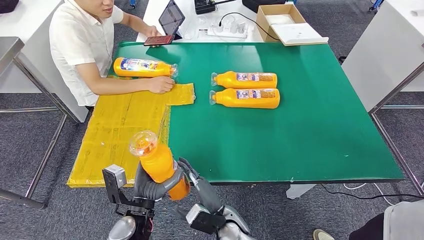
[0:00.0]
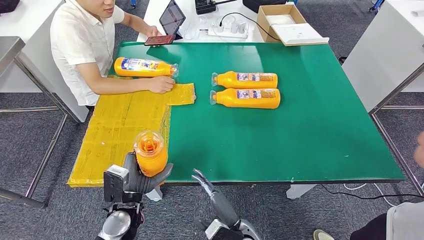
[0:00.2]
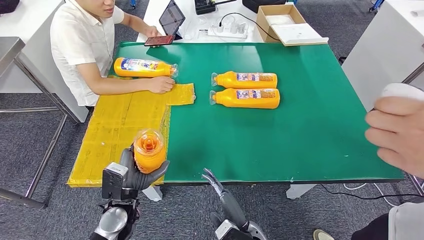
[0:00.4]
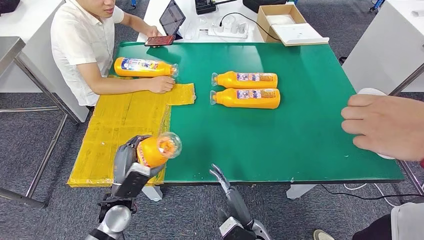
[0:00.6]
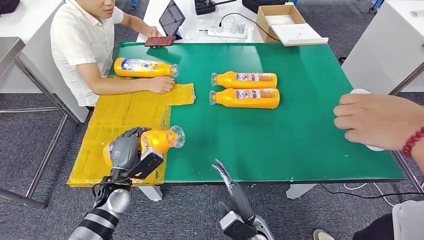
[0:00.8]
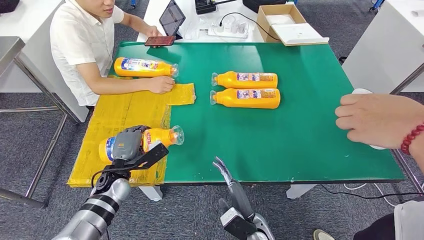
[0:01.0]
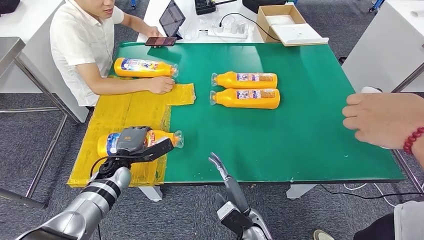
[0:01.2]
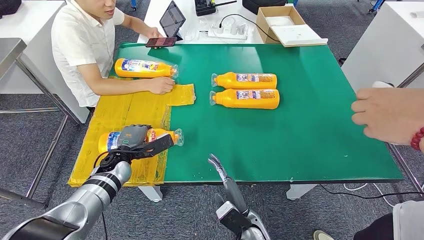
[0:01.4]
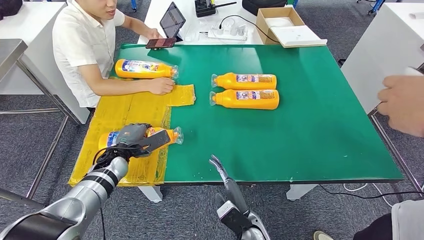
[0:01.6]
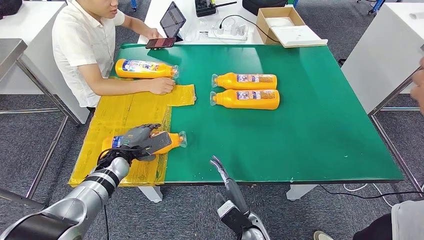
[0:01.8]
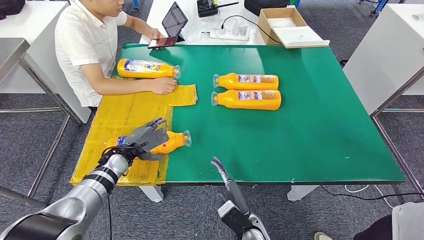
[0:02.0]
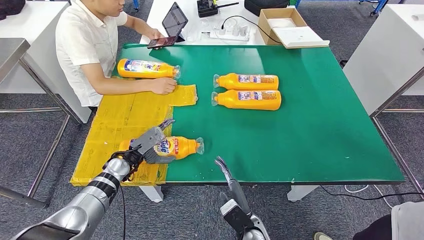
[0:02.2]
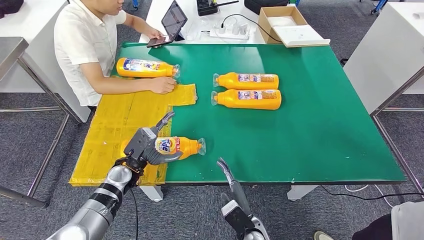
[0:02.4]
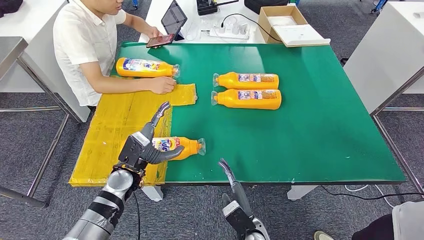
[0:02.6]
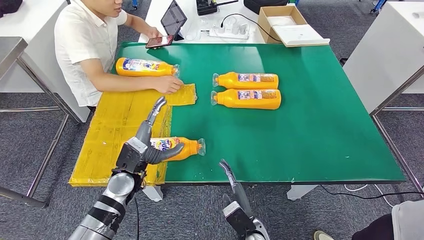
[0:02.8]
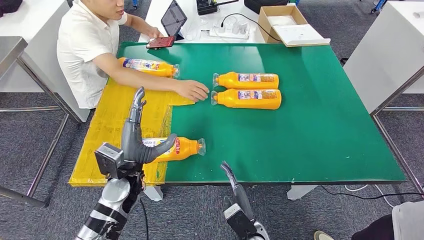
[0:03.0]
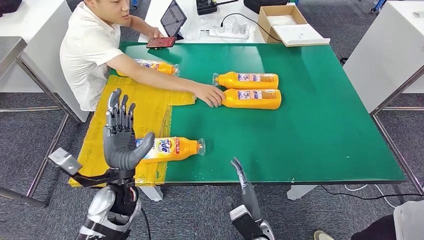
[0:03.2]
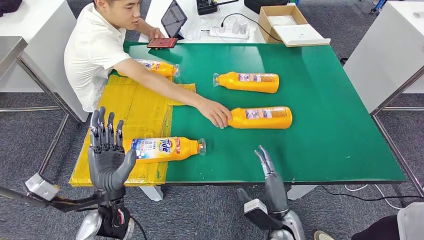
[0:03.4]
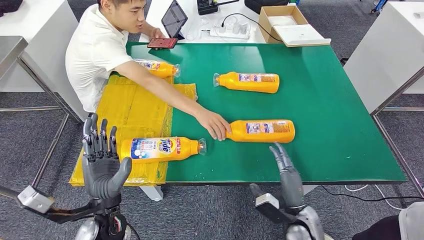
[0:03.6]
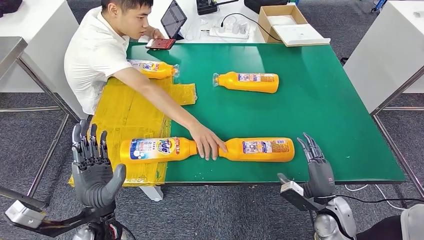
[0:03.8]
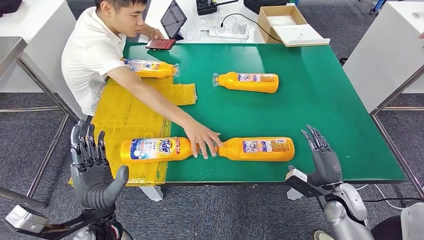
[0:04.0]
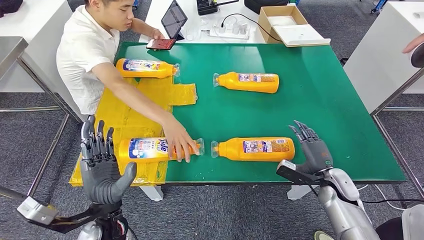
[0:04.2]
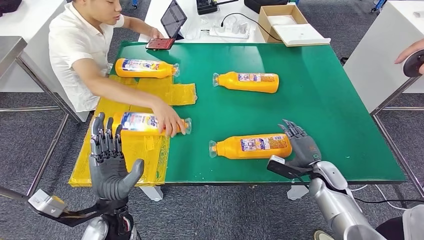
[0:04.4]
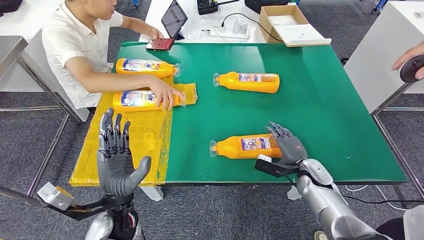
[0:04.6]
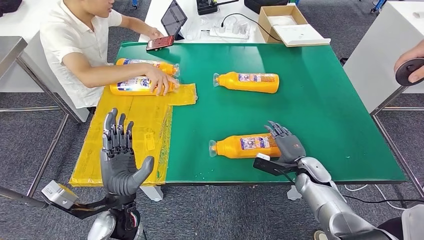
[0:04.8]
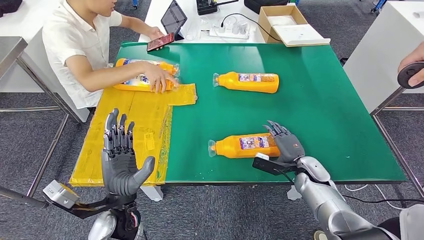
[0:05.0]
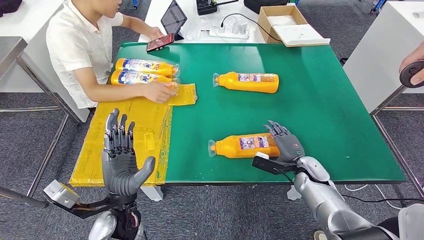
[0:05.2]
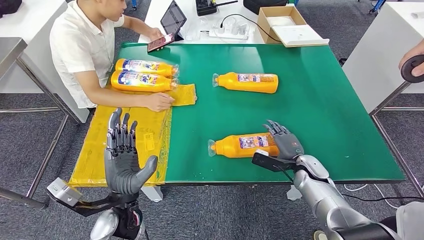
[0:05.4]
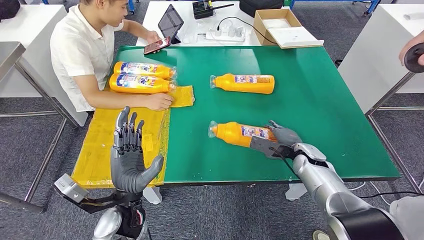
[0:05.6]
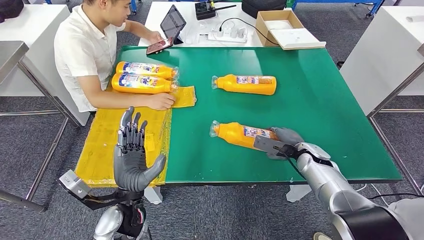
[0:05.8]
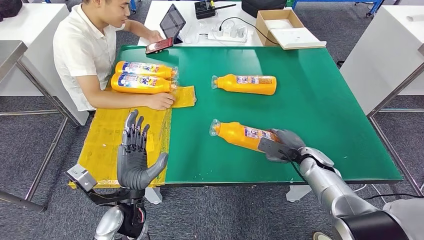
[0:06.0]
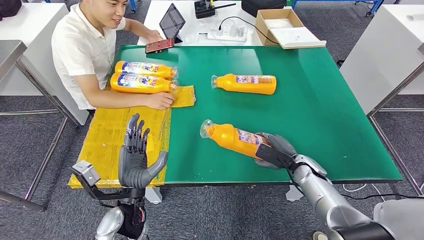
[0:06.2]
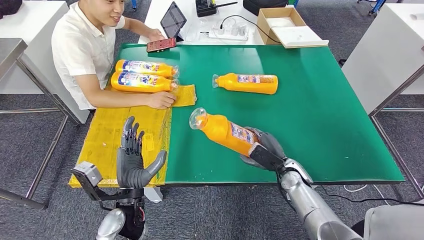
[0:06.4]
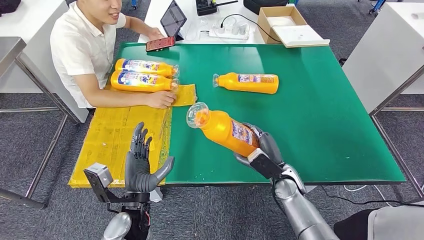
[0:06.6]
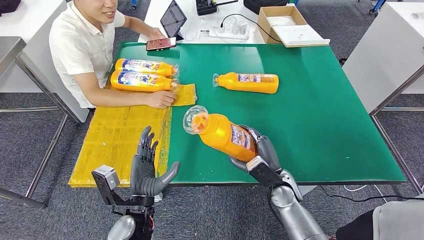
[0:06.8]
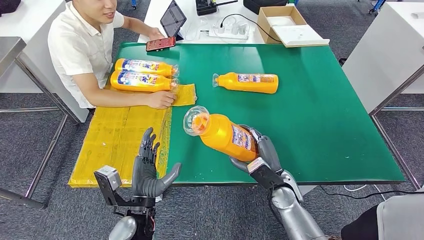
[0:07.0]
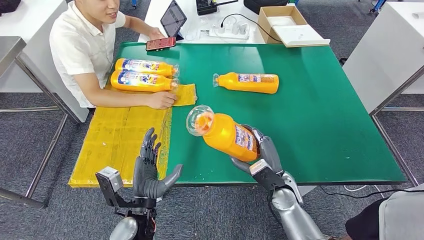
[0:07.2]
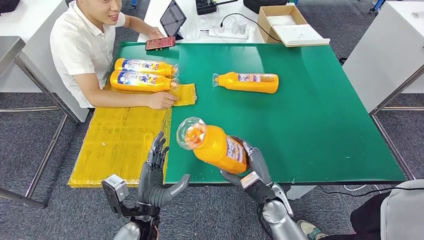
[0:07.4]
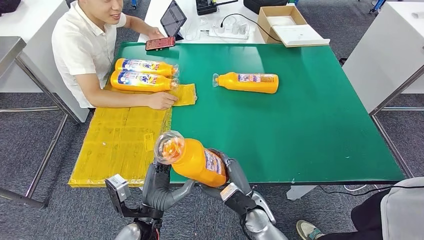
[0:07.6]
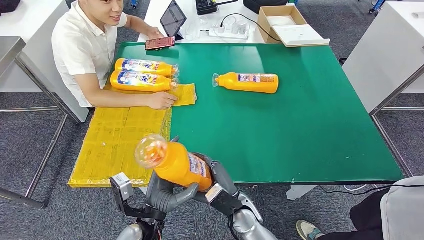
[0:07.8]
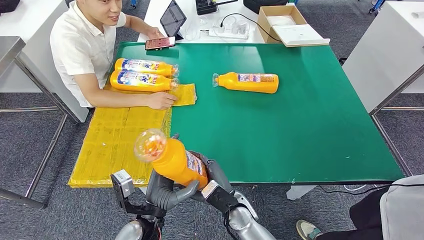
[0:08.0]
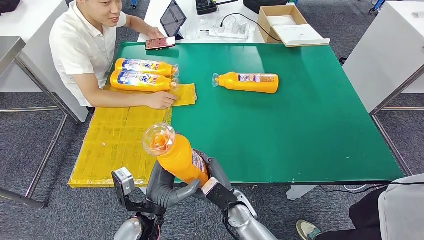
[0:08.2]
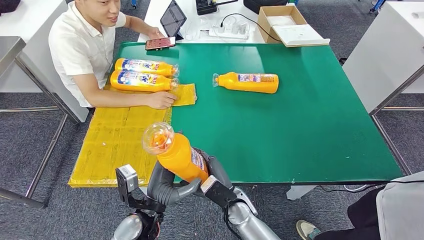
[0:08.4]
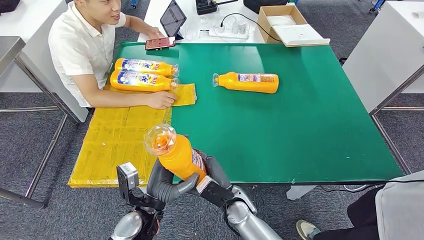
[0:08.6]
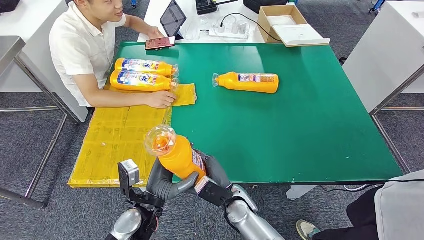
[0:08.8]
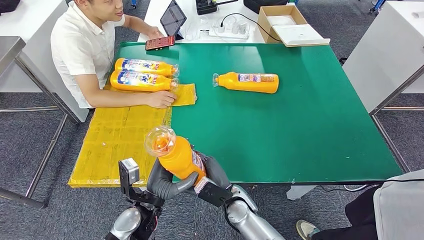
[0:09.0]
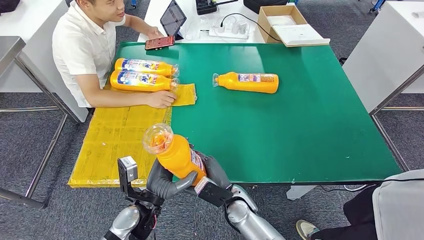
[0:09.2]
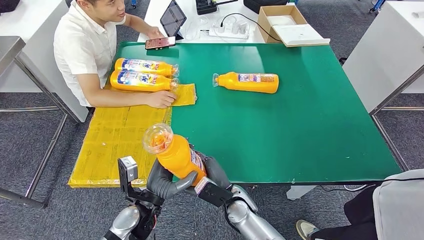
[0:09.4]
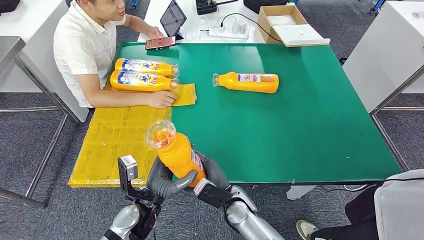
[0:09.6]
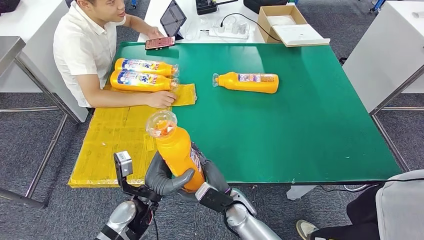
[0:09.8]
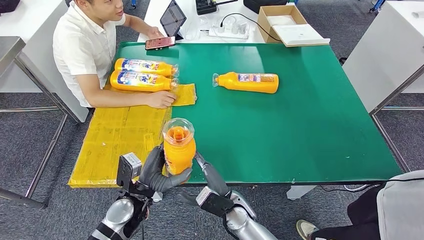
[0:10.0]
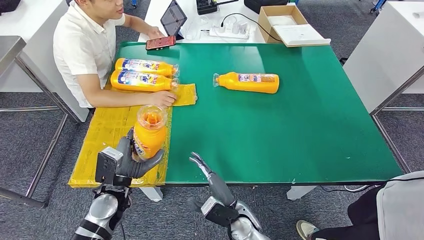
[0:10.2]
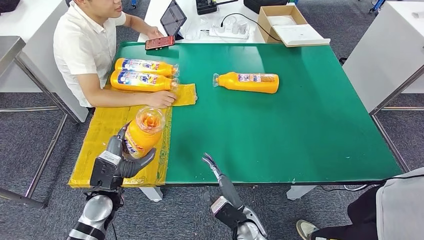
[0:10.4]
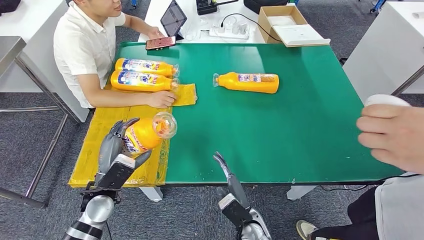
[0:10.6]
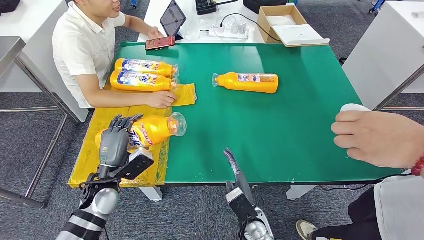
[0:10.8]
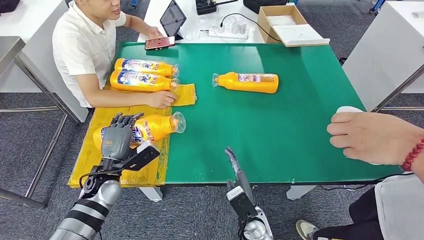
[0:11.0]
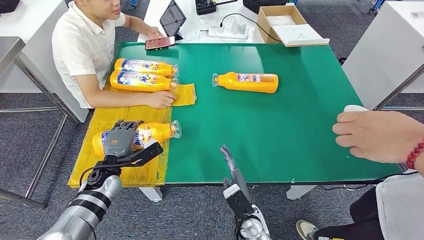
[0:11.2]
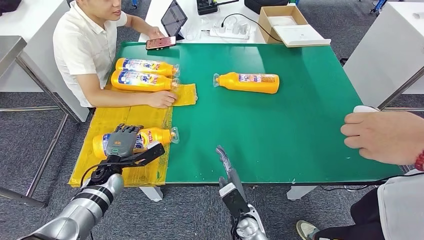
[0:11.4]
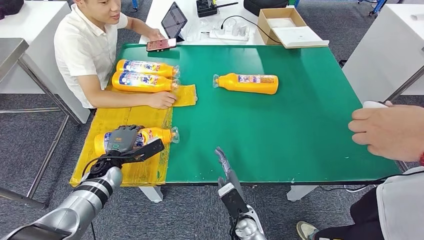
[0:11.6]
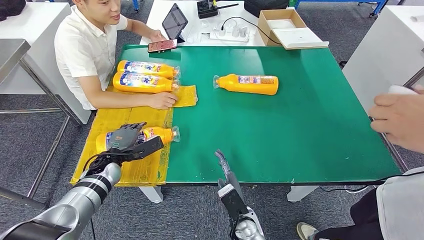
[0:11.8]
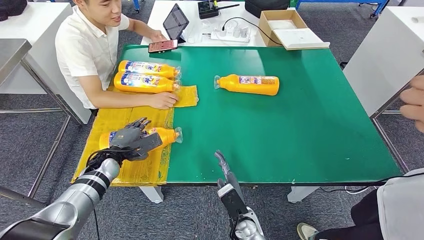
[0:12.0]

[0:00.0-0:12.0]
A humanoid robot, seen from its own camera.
Step, 0:00.0 to 0:02.8: Flip the fast-moving consumer goods bottle to the front side.
Step, 0:03.0 to 0:07.6: Pick up the fast-moving consumer goods bottle from the table.
0:07.6 to 0:09.0: The right hand shifts some 5 cm to the left.
0:09.0 to 0:10.4: The right hand shifts by about 5 cm, while the left hand shifts some 10 cm to the left.

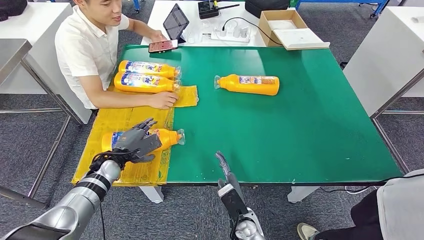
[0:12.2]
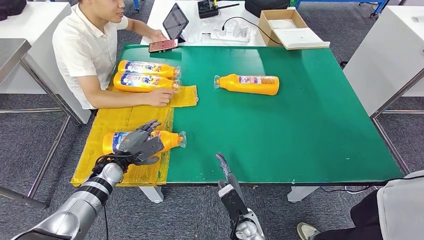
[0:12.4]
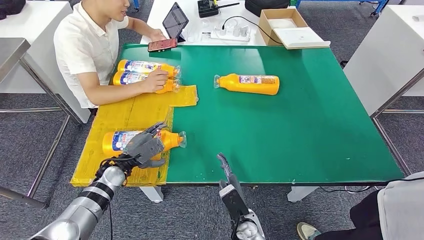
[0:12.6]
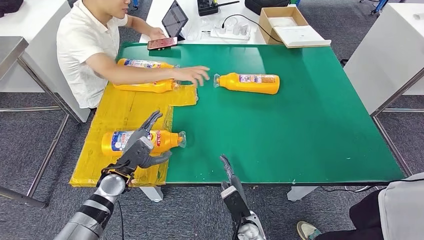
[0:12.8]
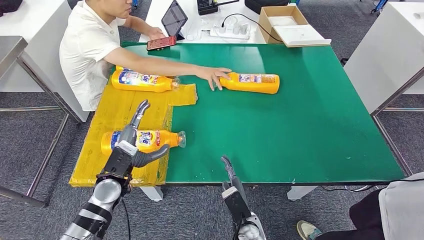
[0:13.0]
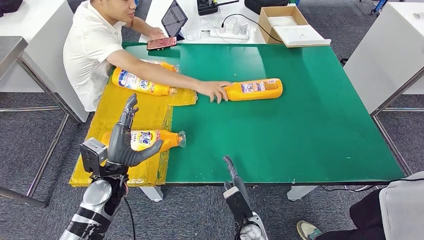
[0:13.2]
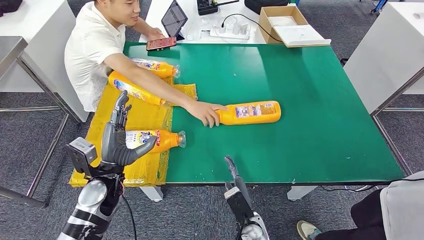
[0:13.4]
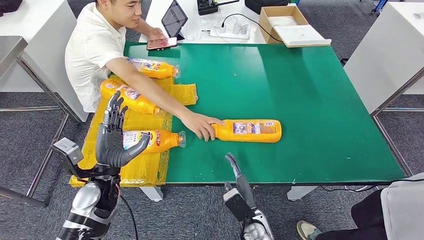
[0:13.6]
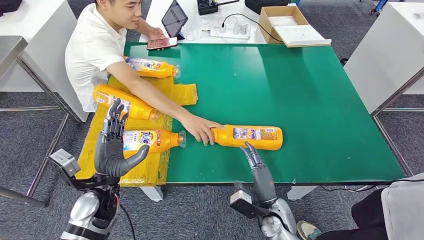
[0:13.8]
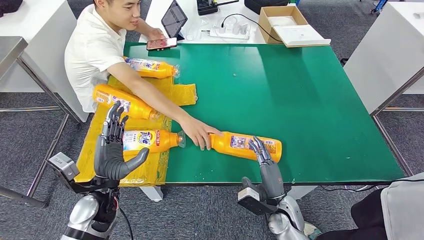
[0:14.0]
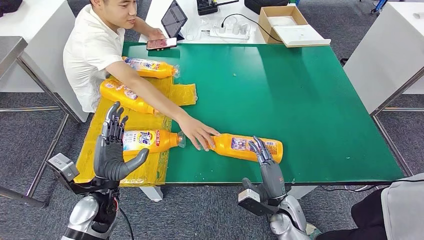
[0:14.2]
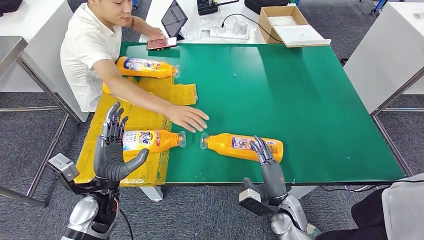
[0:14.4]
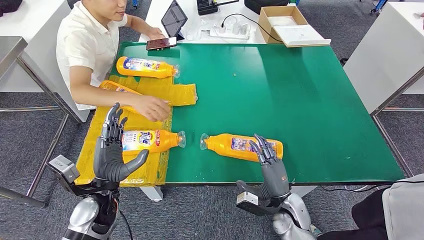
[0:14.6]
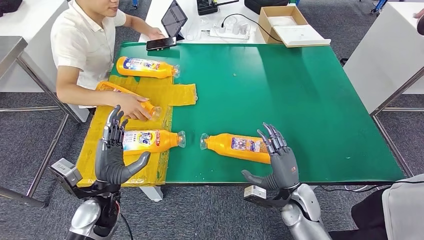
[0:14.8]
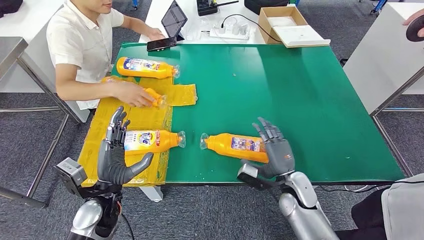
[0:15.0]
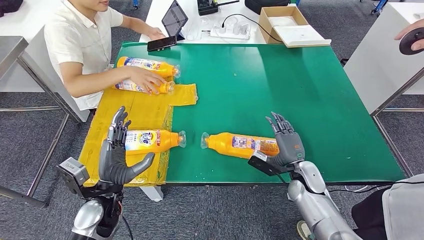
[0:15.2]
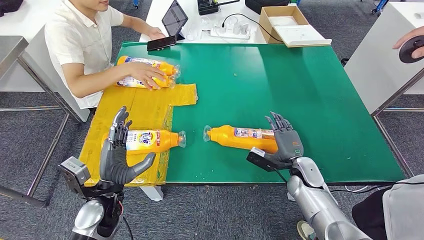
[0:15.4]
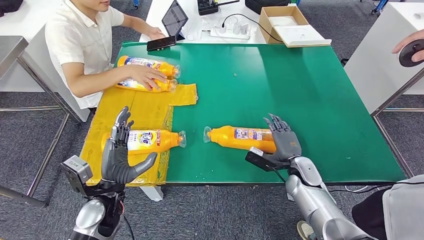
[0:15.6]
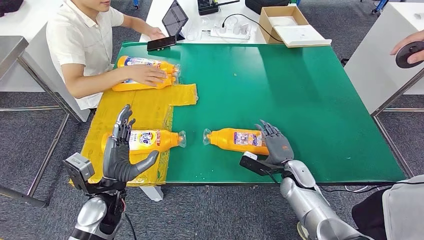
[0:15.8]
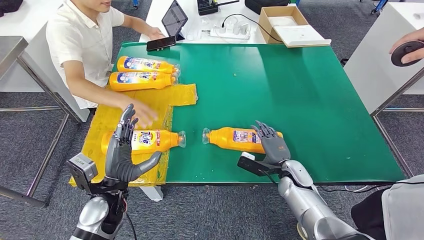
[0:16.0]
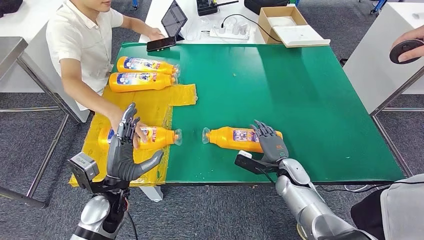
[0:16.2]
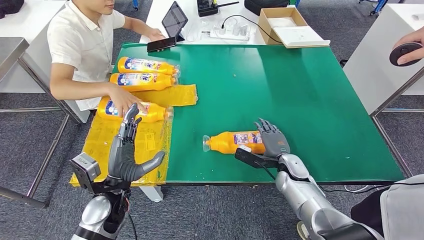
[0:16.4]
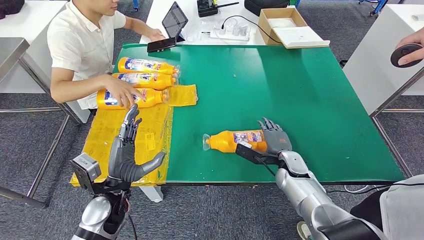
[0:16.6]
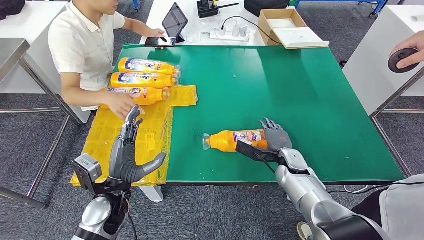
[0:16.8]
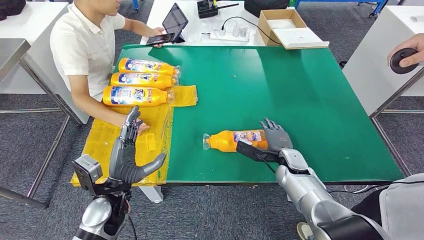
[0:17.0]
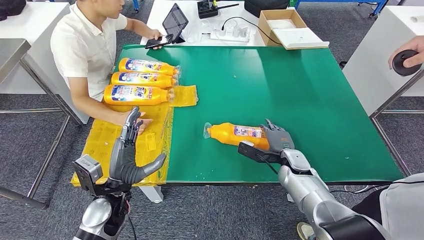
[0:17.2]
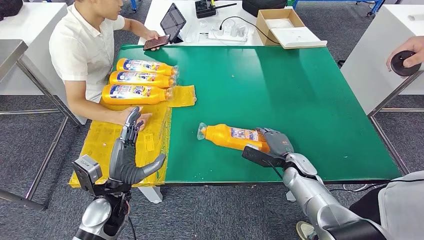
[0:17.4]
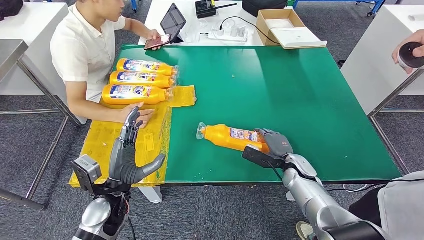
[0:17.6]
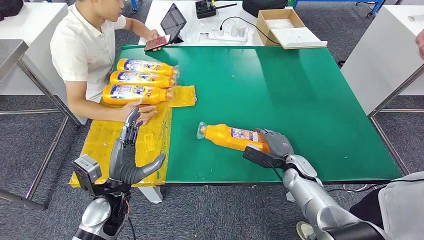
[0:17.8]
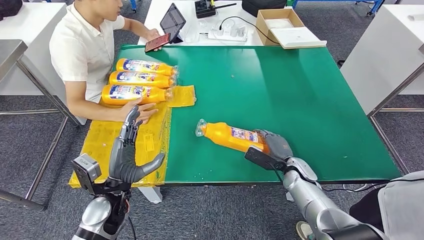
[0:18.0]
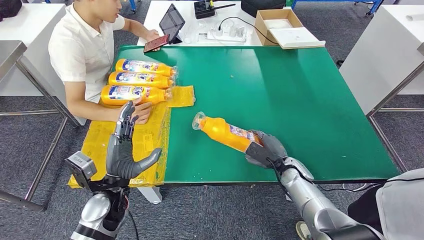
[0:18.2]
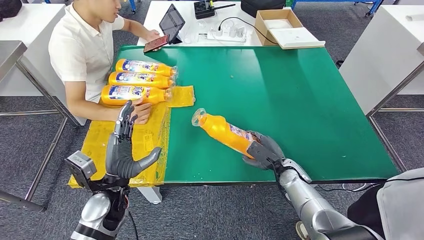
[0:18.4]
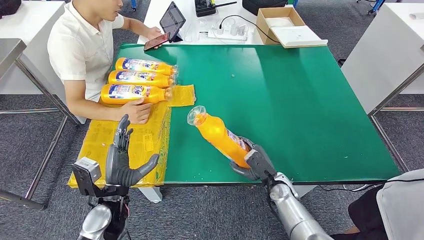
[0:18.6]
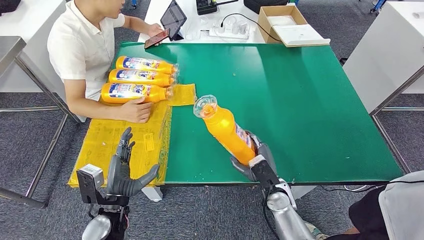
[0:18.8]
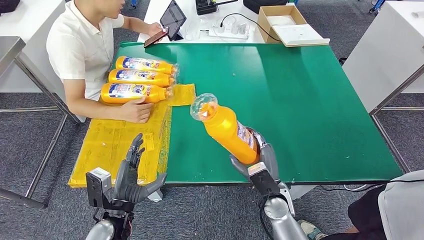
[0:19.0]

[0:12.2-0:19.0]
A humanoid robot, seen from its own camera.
Step, 0:12.2 to 0:14.4: Flip the fast-moving consumer goods bottle to the front side.
Step, 0:14.6 to 0:18.4: Pick up the fast-moving consumer goods bottle from the table.
0:15.0 to 0:16.2: The right hand is displaced forward by about 5 cm.
